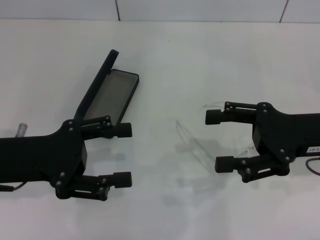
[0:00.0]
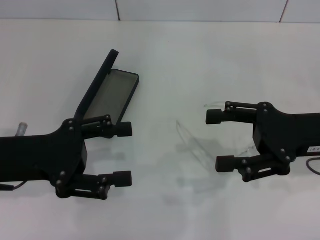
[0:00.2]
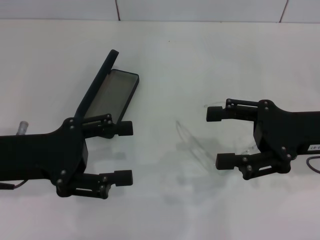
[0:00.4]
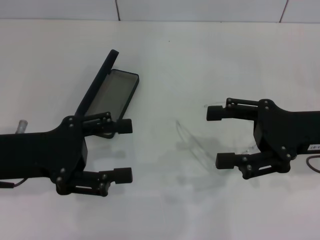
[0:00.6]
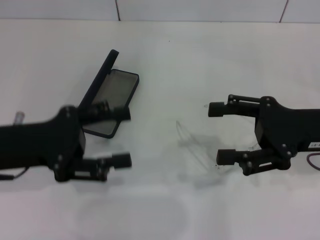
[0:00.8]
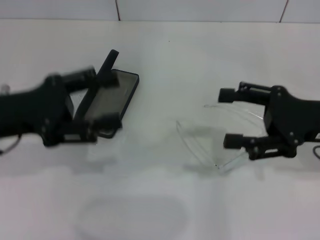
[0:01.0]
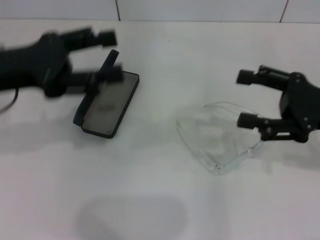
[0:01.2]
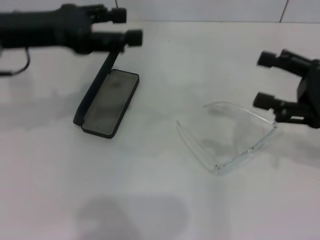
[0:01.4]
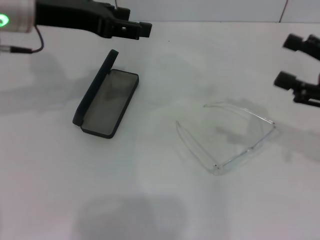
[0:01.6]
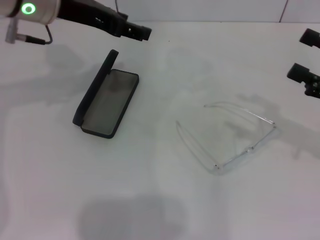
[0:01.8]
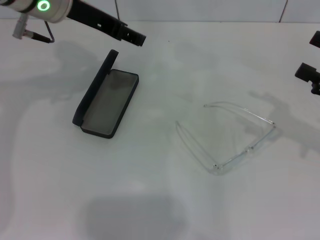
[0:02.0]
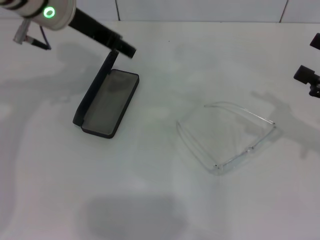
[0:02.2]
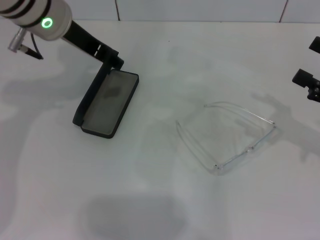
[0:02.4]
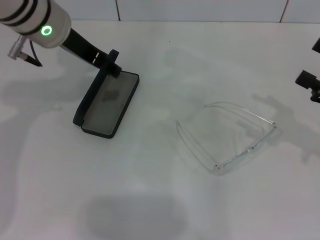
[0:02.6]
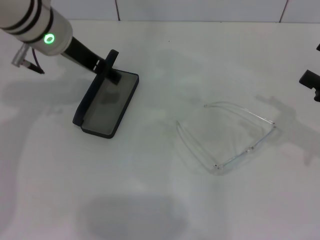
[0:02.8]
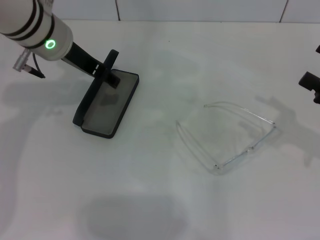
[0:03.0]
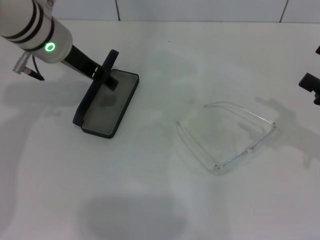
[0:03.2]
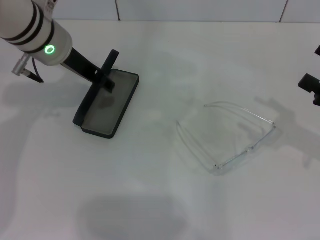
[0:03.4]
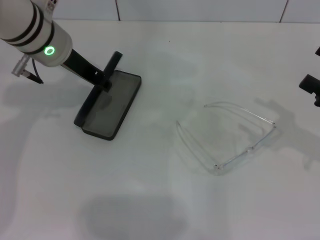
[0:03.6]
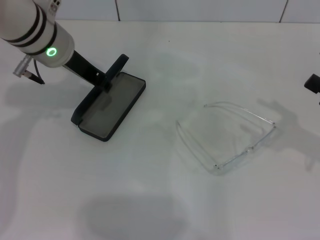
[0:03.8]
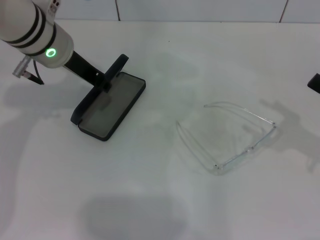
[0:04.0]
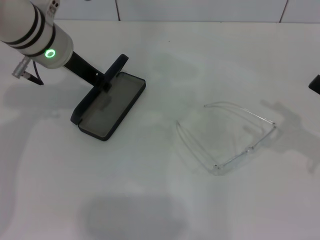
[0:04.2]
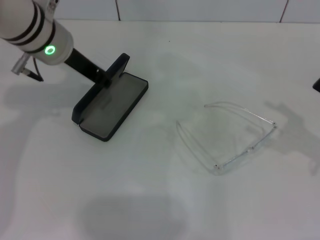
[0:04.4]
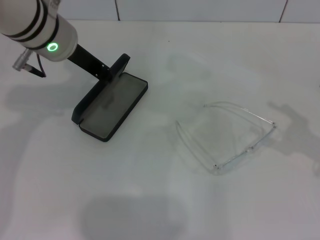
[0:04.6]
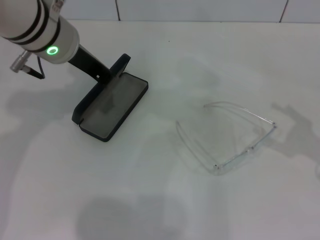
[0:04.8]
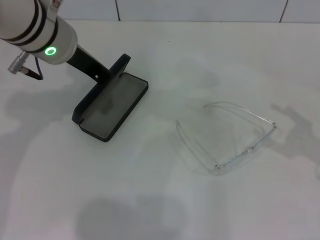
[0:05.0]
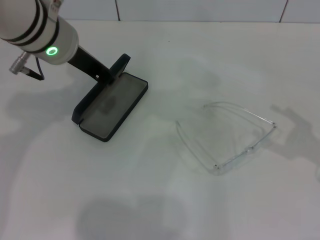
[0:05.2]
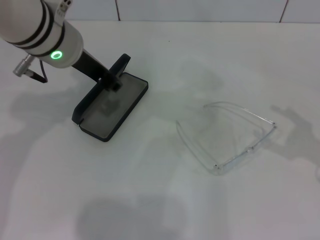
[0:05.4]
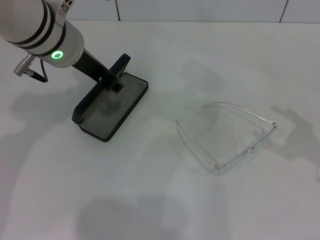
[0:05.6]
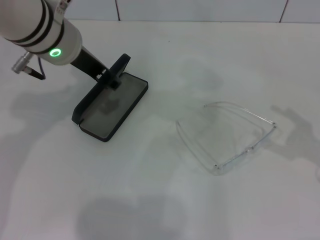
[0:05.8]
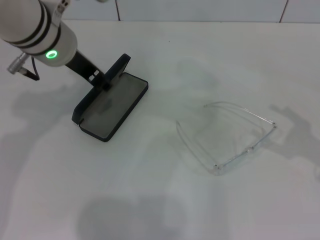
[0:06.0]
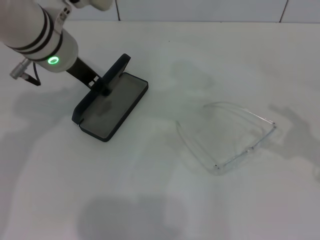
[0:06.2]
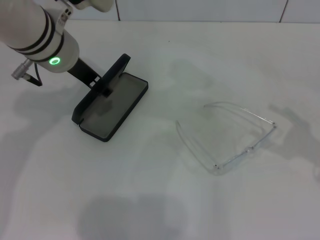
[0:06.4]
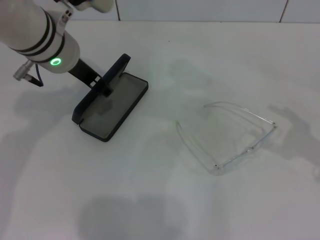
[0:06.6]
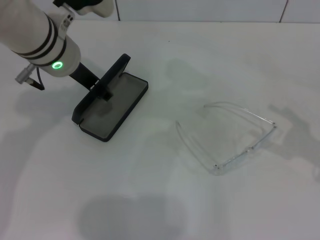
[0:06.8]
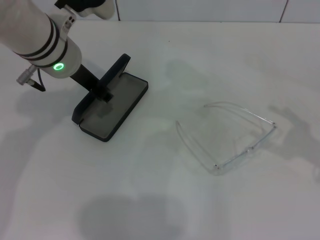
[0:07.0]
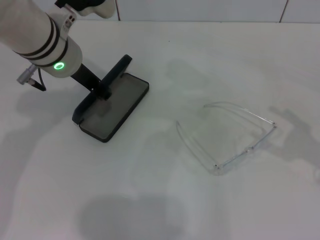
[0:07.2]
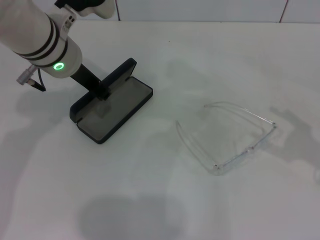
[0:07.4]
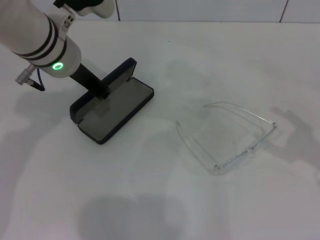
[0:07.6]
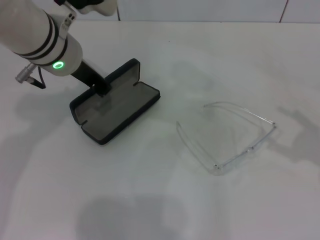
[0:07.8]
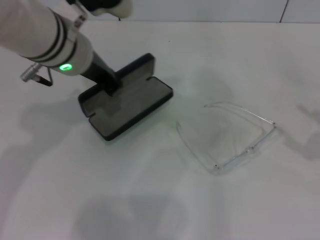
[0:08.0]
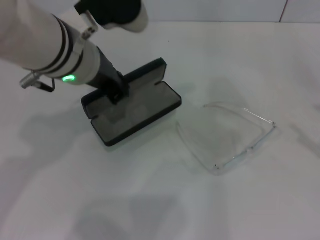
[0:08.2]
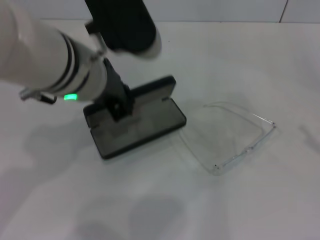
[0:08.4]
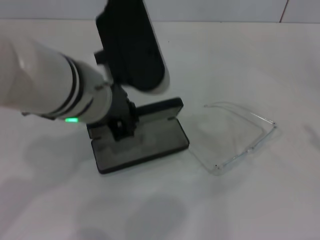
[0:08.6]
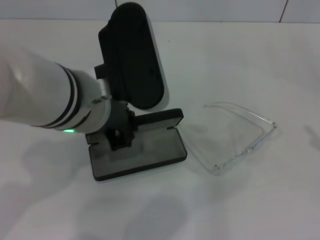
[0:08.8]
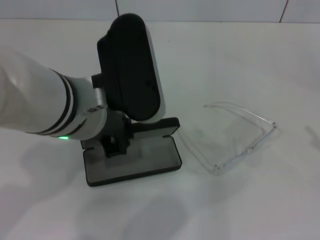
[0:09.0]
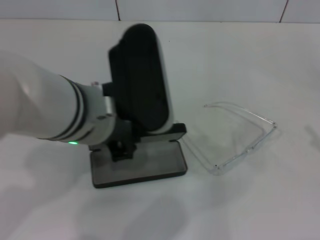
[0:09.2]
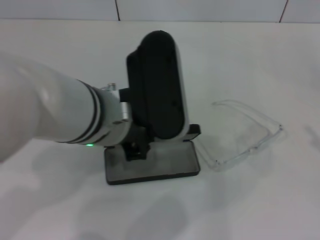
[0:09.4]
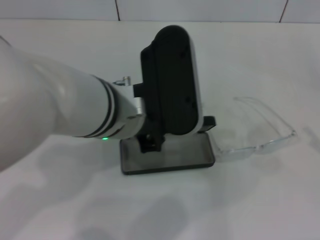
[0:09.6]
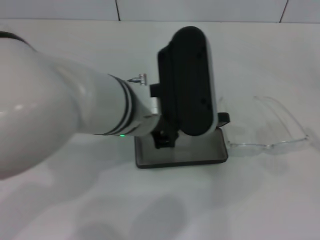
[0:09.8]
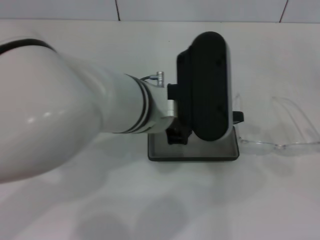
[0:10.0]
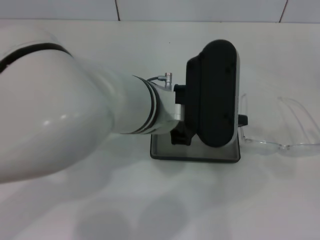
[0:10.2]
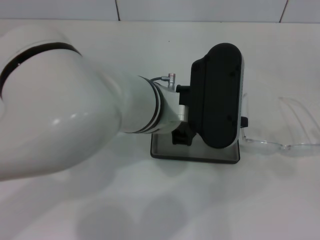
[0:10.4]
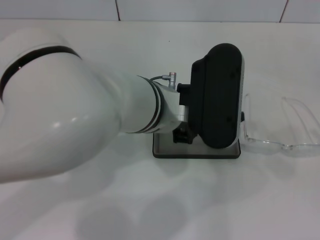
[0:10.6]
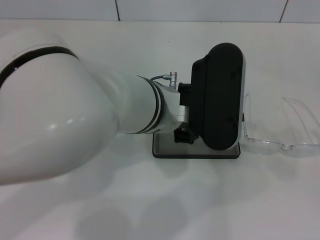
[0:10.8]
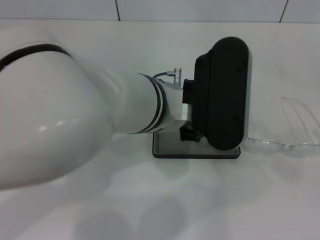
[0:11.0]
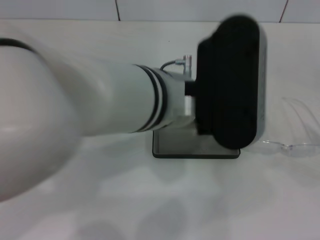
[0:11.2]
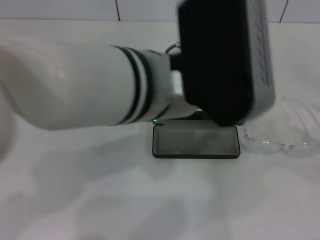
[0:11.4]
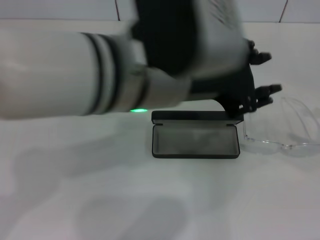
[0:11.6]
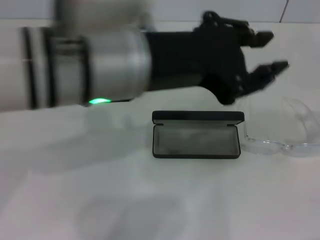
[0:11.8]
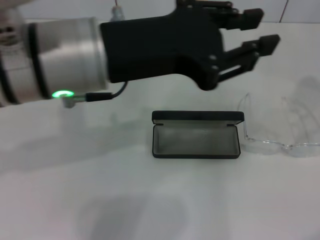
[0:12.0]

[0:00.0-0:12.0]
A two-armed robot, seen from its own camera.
Step, 0:00.0 to 0:07.4: Grab the glasses case with your left hand.
Step, 0:07.6 to 0:10.4: Place the glasses case in the center of the table with your left hand.
0:00.0 to 0:01.6: The left gripper is displaced forward, upward and to the right by roughly 20 cm. The right gripper shifts approximately 5 cm to the right.
0:01.6 to 0:03.0: The left gripper changes place by roughly 5 cm.
0:03.0 to 0:04.4: The left gripper closes.
0:04.4 to 0:07.6: The grippers stay close to where they were, moving slightly.
0:07.6 to 0:09.0: The right gripper shifts by some 5 cm, while the left gripper moves backward, about 10 cm.
0:09.0 to 0:10.4: The left gripper travels to the right by some 10 cm.
0:10.4 to 0:12.0: The right gripper is displaced forward and upward by some 20 cm. The left gripper shifts approximately 10 cm to the left and upward.

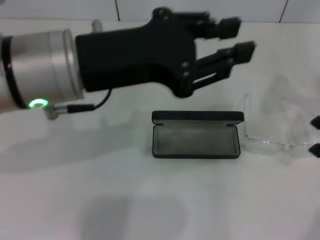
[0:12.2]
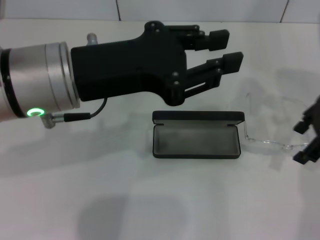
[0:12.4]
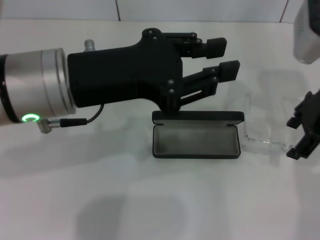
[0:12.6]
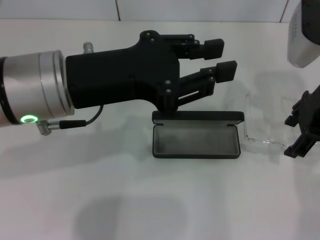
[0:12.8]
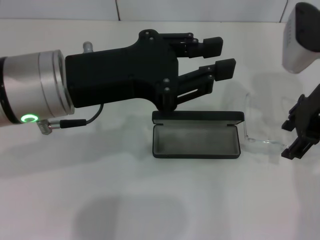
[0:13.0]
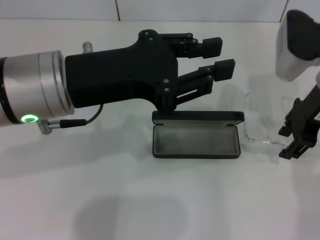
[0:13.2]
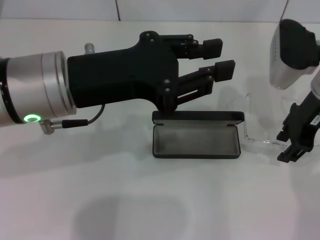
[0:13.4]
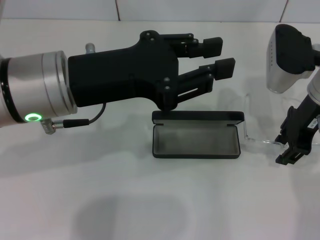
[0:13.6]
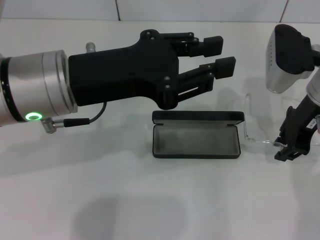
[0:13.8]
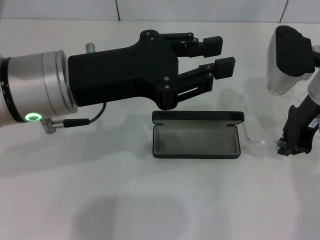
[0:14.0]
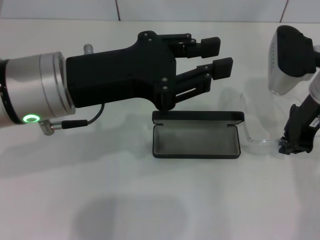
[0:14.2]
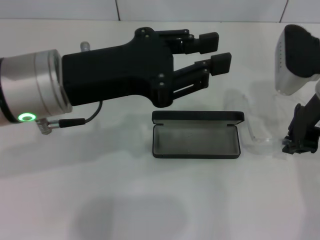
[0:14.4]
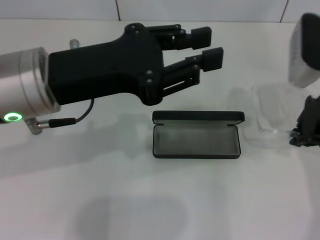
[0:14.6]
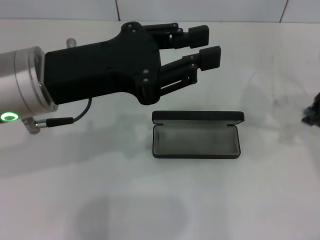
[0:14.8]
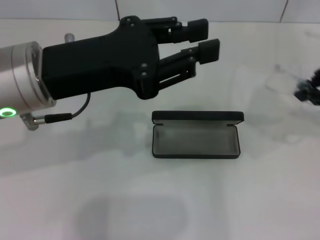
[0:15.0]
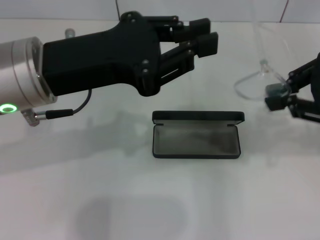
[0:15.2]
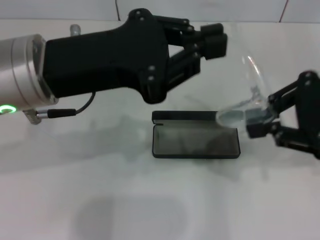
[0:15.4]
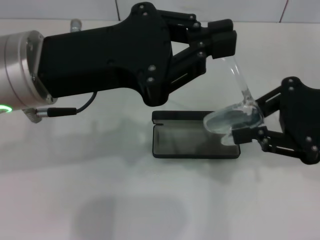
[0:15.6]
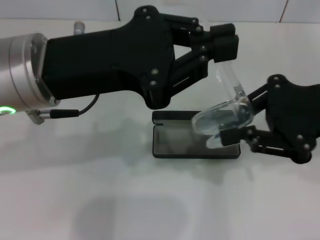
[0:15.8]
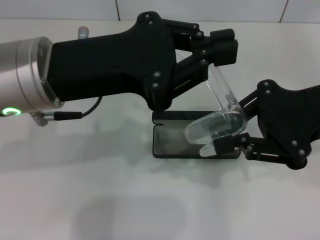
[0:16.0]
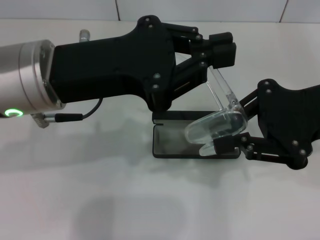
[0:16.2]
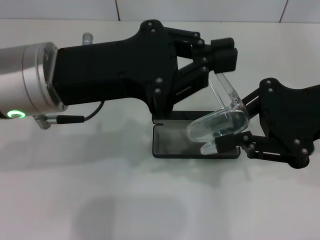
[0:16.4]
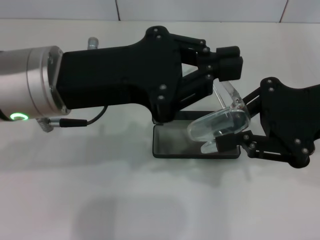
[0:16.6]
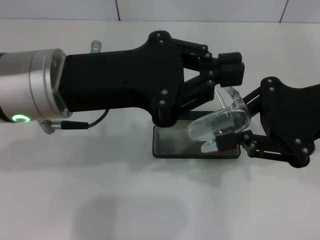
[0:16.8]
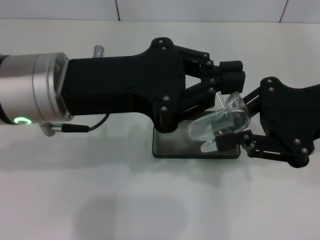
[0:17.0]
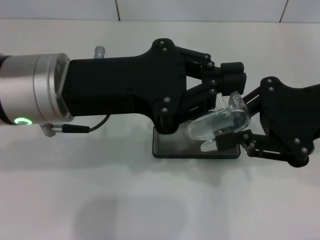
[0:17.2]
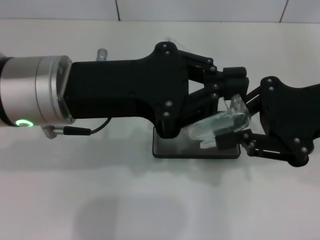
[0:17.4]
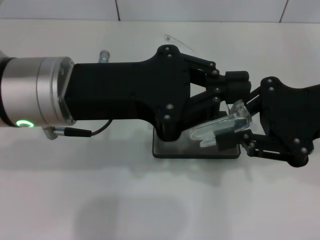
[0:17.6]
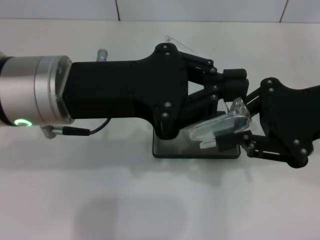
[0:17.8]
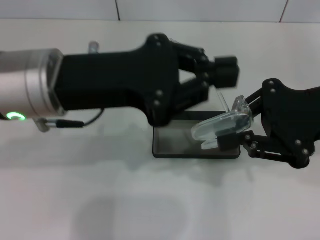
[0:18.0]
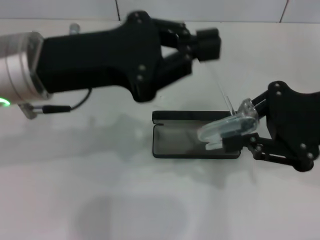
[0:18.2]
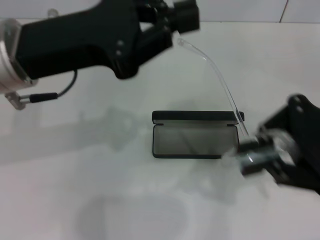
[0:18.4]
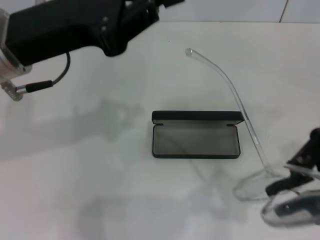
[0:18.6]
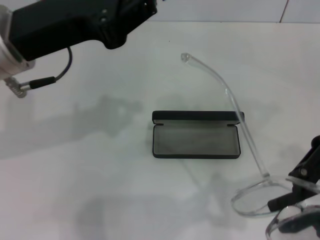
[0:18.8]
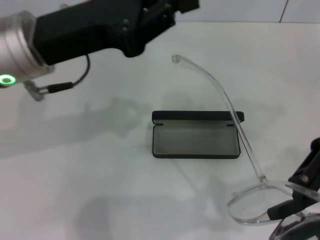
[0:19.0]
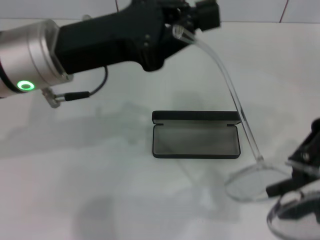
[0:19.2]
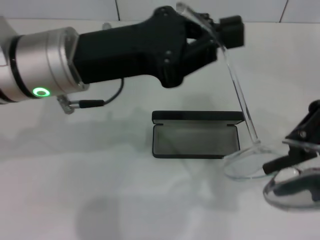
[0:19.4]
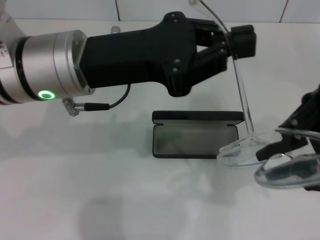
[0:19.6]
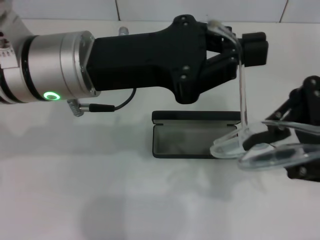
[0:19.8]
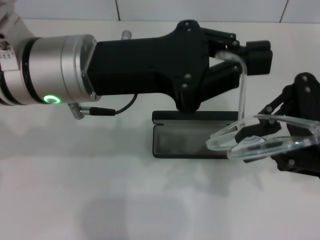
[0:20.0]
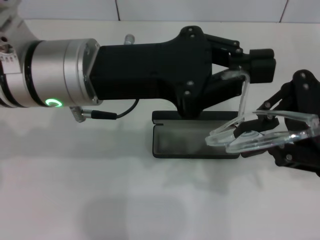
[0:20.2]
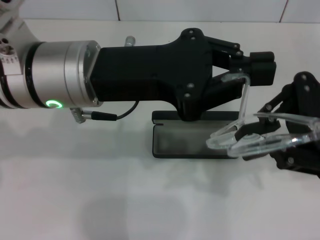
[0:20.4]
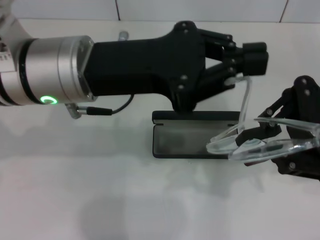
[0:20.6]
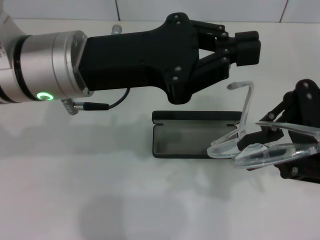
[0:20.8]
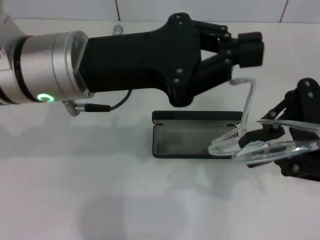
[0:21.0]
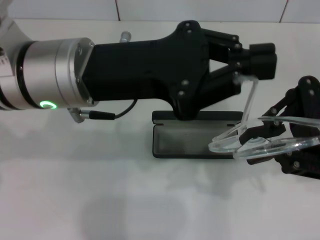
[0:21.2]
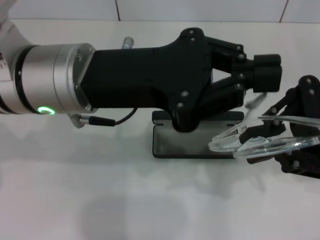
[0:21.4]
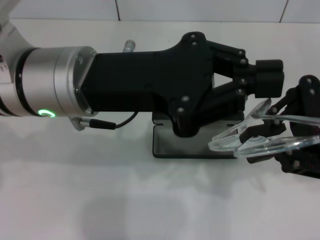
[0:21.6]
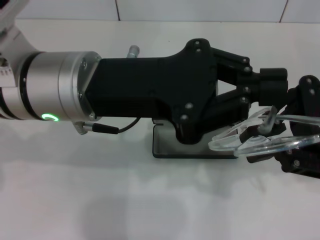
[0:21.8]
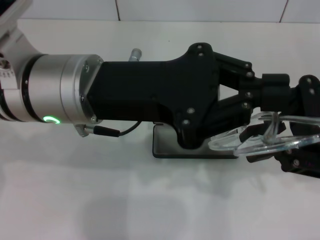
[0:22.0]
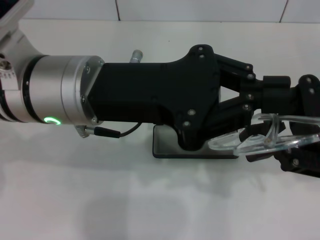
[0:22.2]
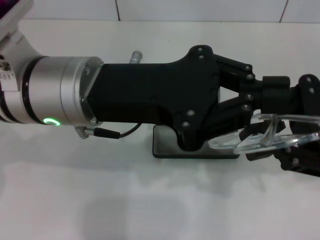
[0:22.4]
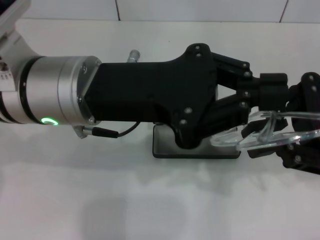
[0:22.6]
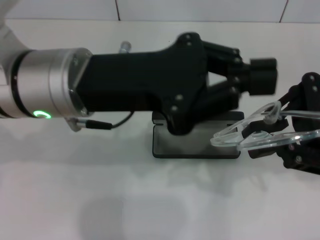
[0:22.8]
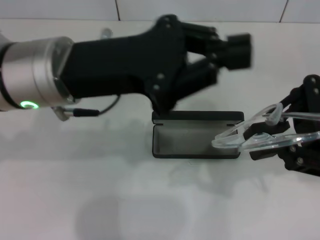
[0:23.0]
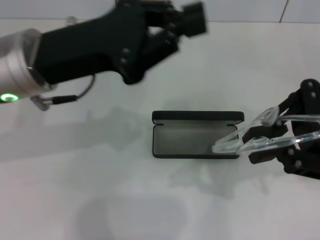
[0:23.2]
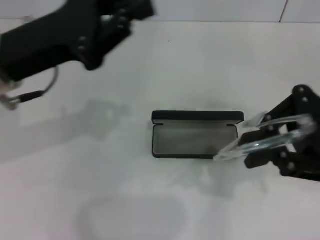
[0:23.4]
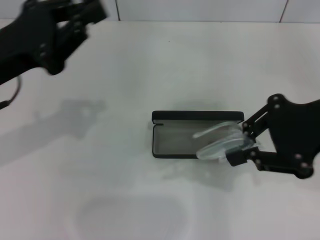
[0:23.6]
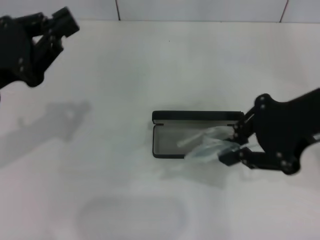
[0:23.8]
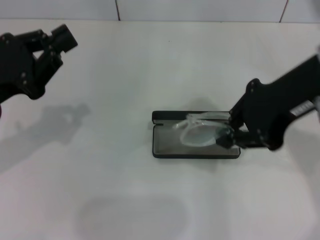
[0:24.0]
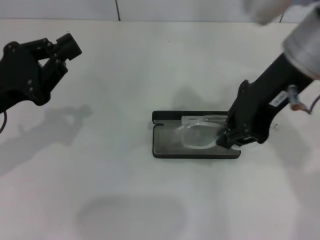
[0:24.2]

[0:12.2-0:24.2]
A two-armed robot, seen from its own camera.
Step, 0:12.2 to 0:14.0: Grab the eyeglass frame with your right hand.
Step, 0:14.2 to 0:22.2: Lift the glasses with your right hand.
0:12.2 to 0:13.8: The right gripper is displaced to the left and downward by some 10 cm, and closes up.
0:13.8 to 0:15.2: The right gripper is displaced backward, upward and to the right by roughly 15 cm, and closes.
0:15.2 to 0:16.6: The right gripper ends up some 5 cm from where it was.
0:22.6 to 0:24.2: The left gripper travels to the left and downward by roughly 15 cm. Meanwhile the right gripper is displaced to the left and upward by about 15 cm.
